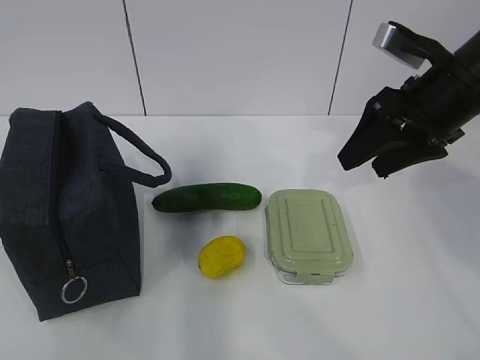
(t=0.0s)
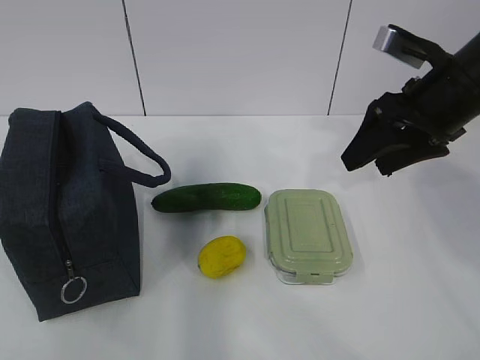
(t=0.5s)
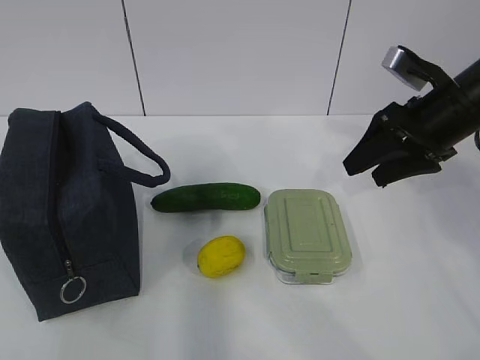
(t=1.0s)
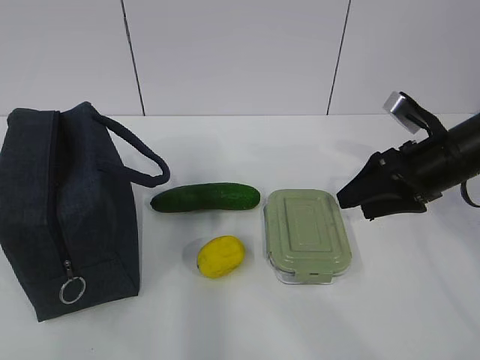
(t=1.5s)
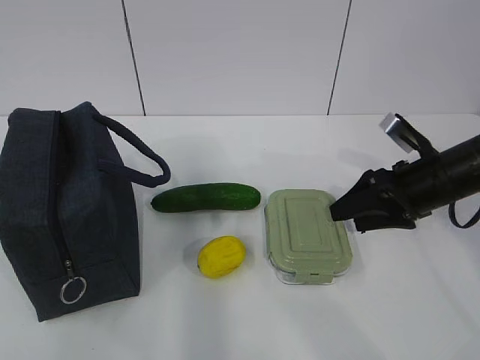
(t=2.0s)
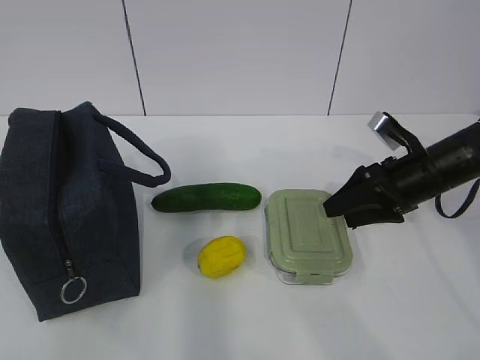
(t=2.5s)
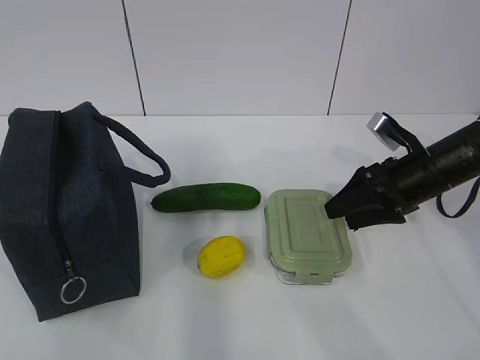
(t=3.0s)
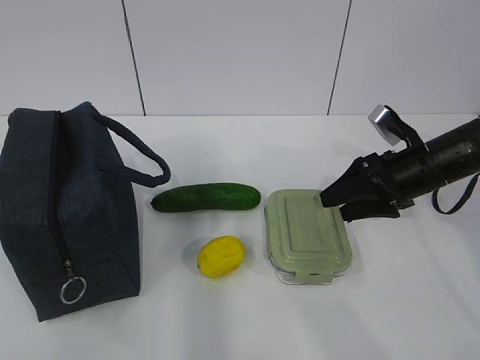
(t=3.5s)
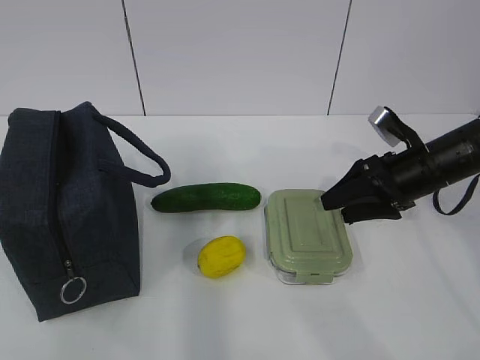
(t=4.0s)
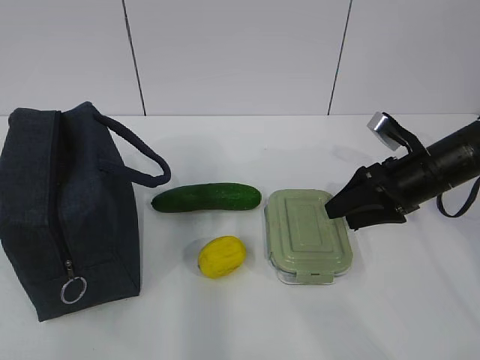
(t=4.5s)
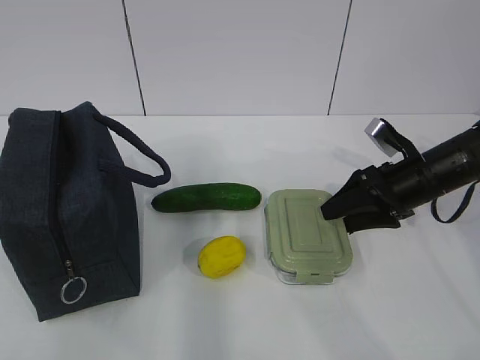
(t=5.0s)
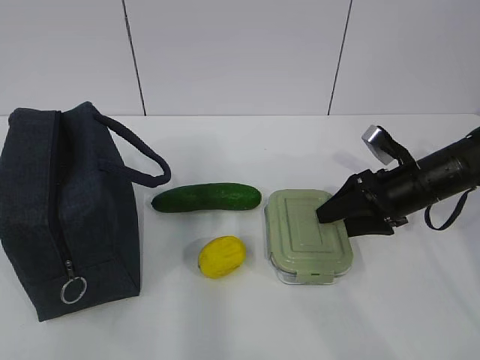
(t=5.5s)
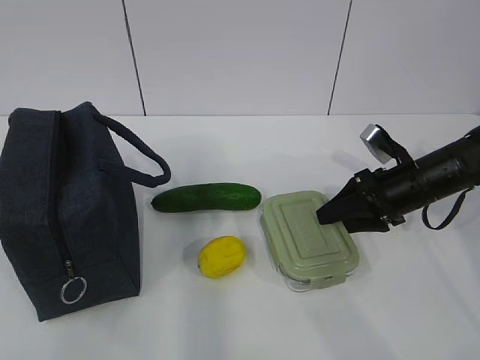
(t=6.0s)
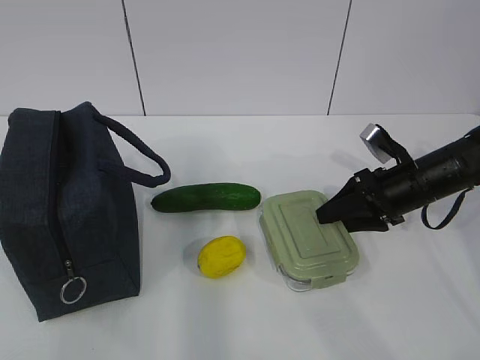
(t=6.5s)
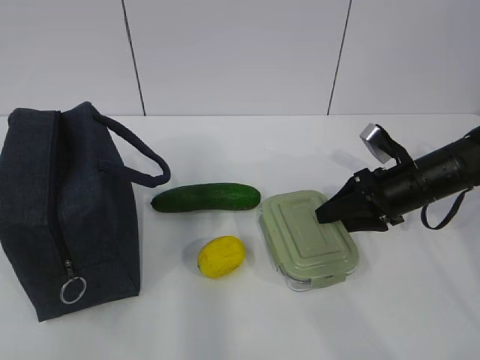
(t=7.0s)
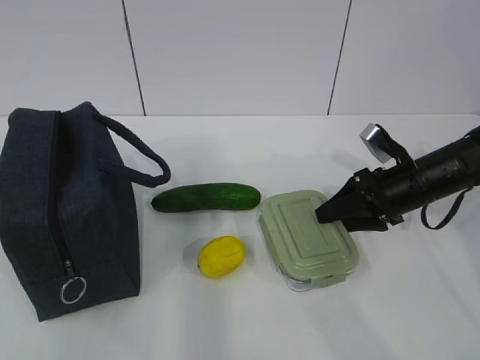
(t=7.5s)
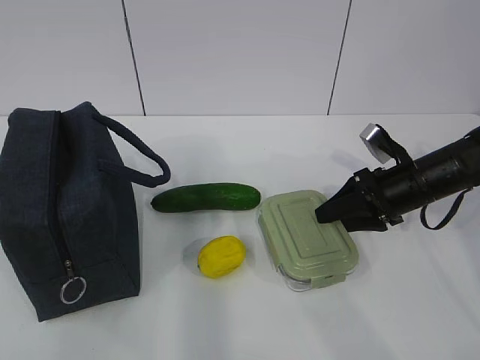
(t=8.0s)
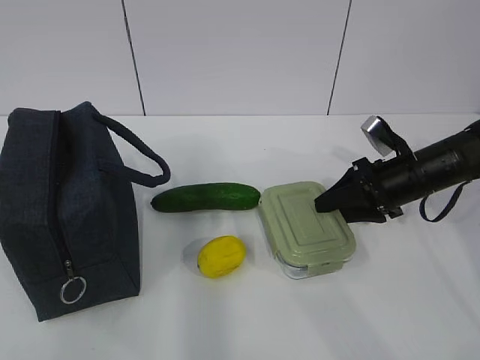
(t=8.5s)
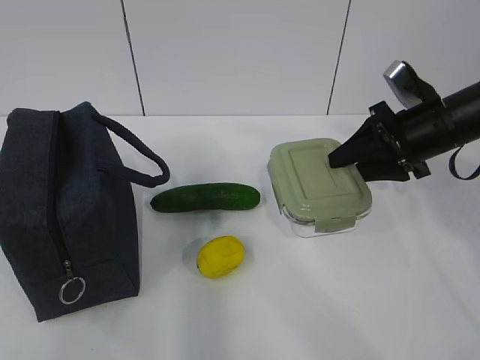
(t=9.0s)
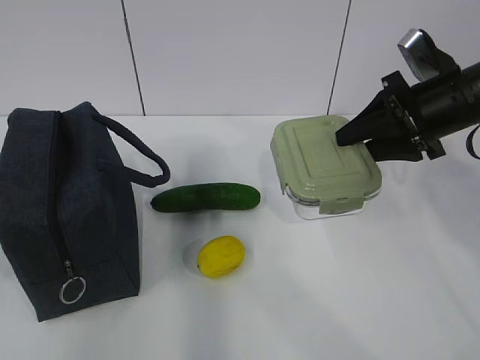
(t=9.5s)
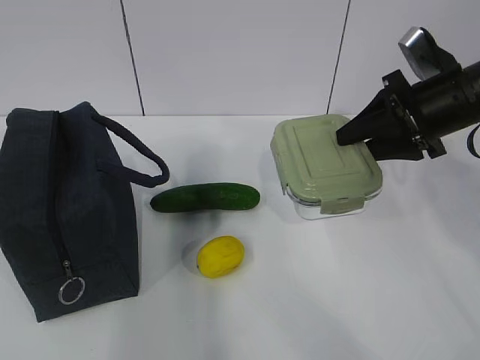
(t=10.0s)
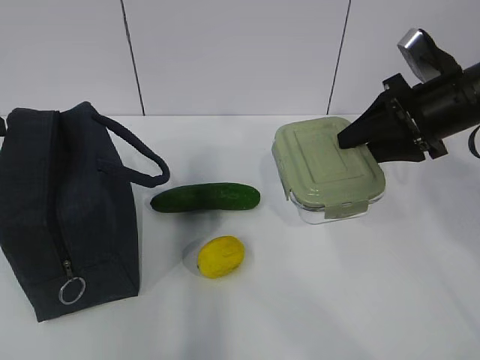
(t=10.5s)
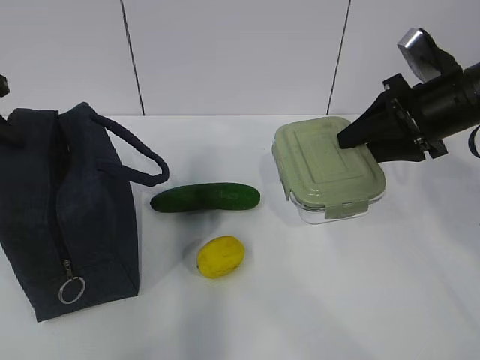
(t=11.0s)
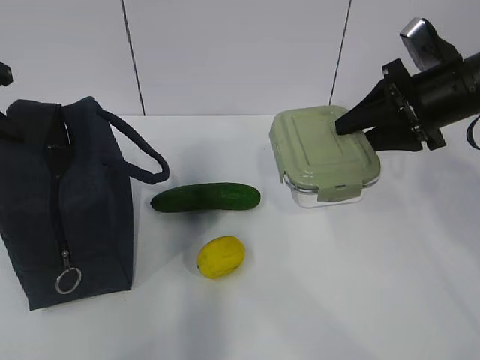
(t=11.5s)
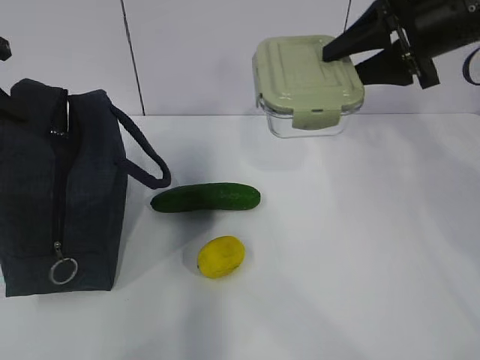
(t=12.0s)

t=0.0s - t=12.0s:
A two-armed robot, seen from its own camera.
Step, t=0.0s - t=5.5s: Grab the lunch box with your right hand.
Step, t=6.0s - t=10.5s: Grab the lunch bag with your left hand.
t=0.0s - t=2.0s: The right gripper travels downward by roughly 15 cm.
t=2.0s - t=6.0s: There are only small adjustments of the grippers.
t=6.0s - t=8.0s: Both grippers stay about where they are.
t=8.0s - t=10.0s: The left gripper goes some 20 cm forward, and opens. Meanwhile the right gripper heads upward, covering some 15 cm.
t=10.0s - t=12.0s: The right gripper travels upward by about 10 cm, while the left gripper travels forward and downward by approximately 10 cm, and closes its fingers.

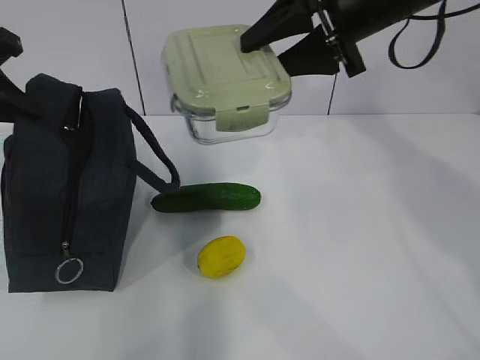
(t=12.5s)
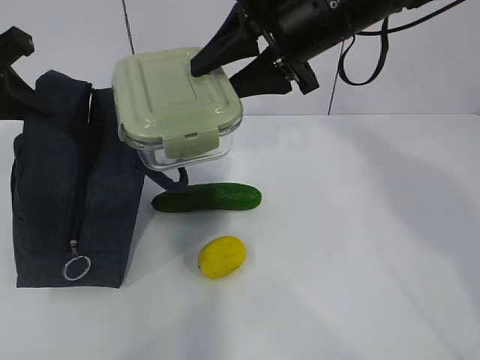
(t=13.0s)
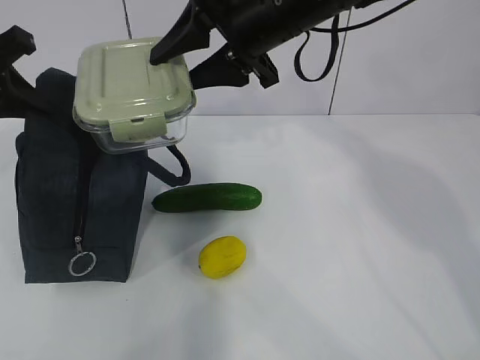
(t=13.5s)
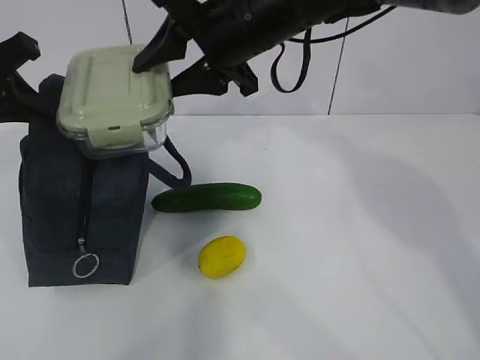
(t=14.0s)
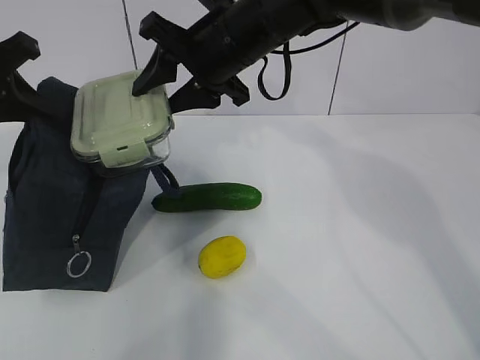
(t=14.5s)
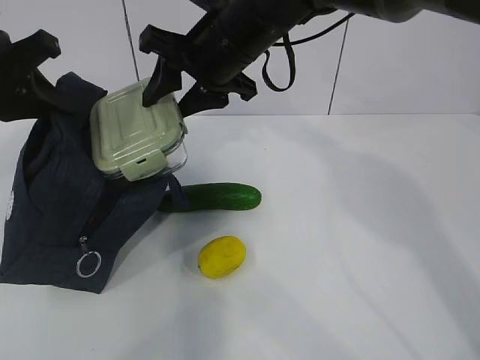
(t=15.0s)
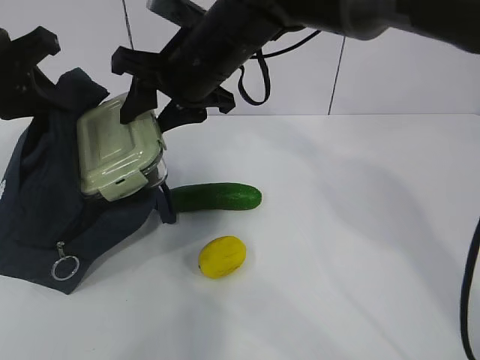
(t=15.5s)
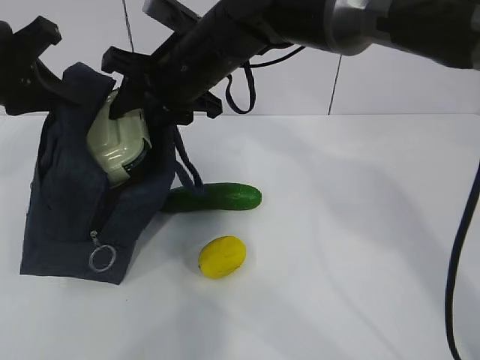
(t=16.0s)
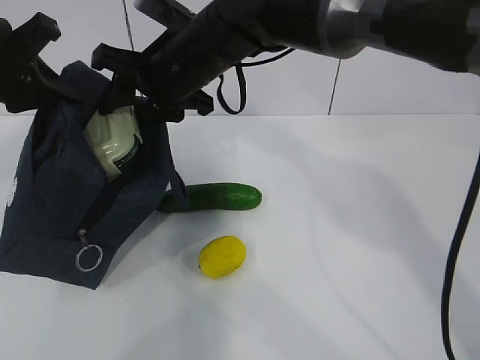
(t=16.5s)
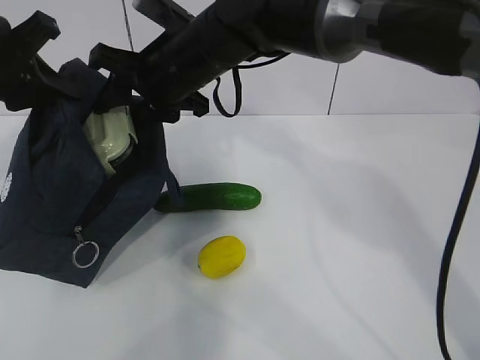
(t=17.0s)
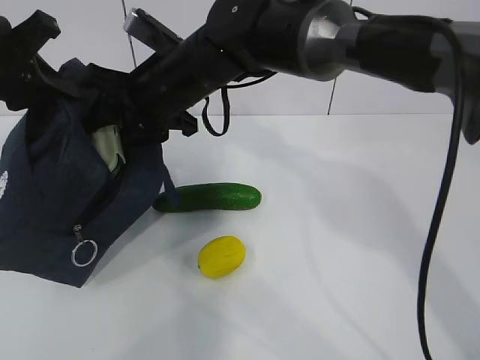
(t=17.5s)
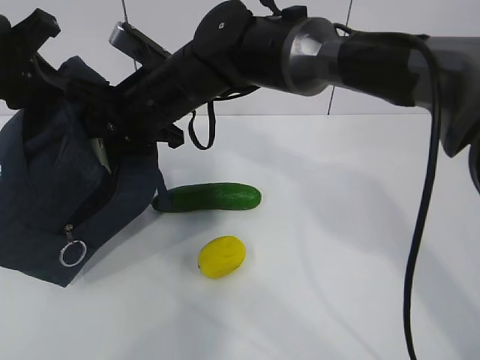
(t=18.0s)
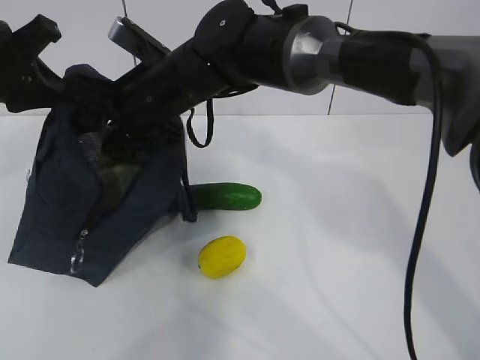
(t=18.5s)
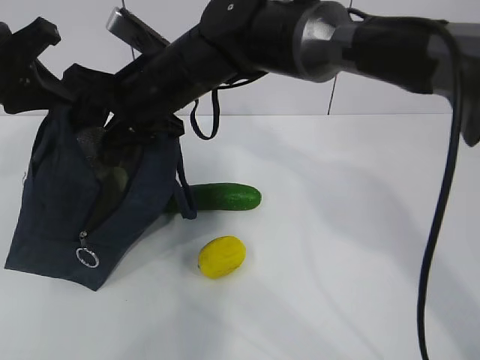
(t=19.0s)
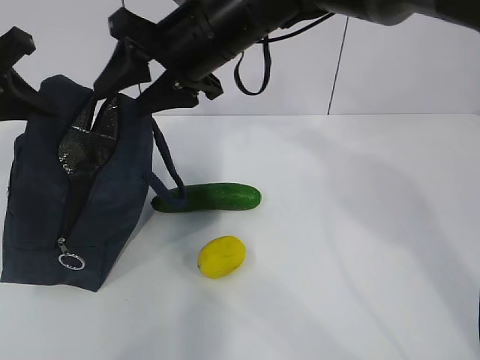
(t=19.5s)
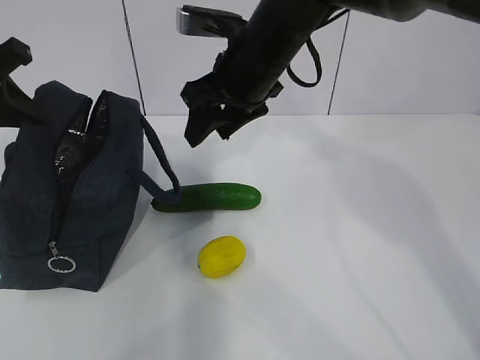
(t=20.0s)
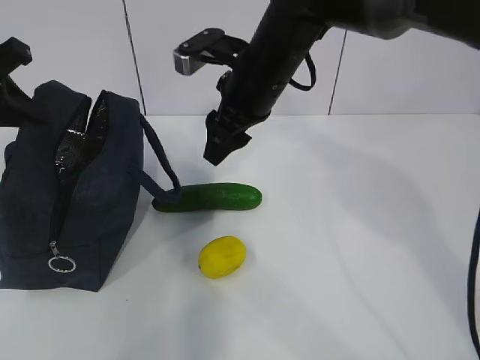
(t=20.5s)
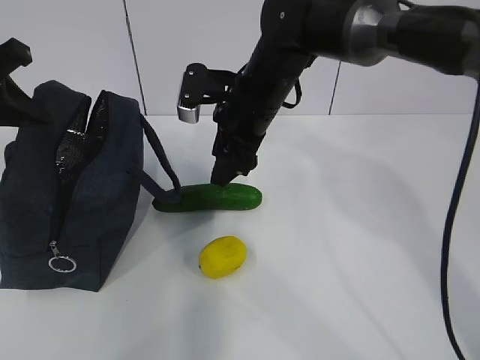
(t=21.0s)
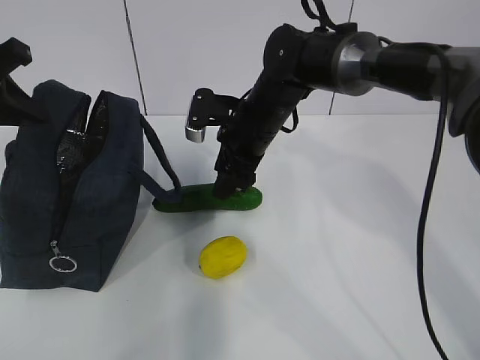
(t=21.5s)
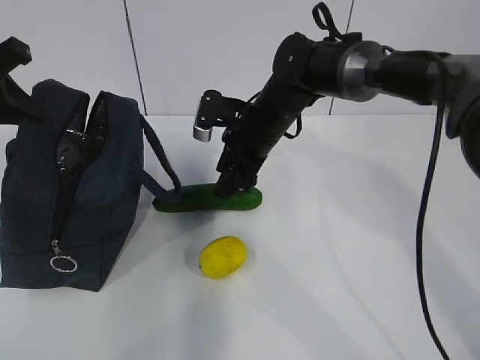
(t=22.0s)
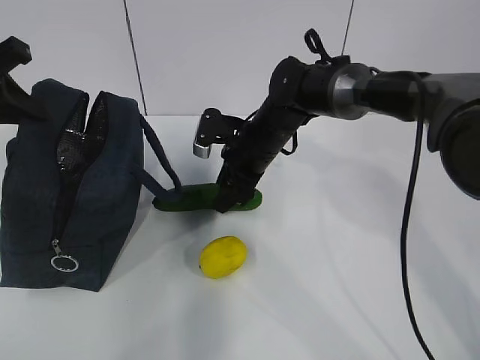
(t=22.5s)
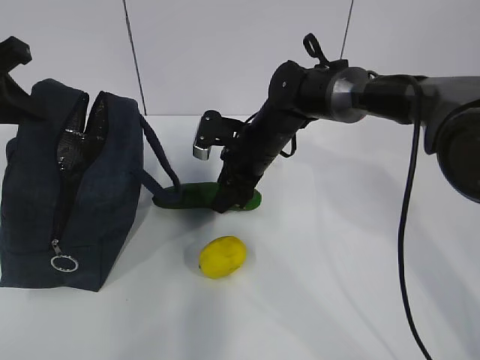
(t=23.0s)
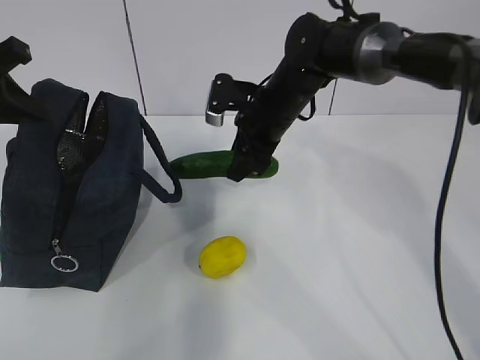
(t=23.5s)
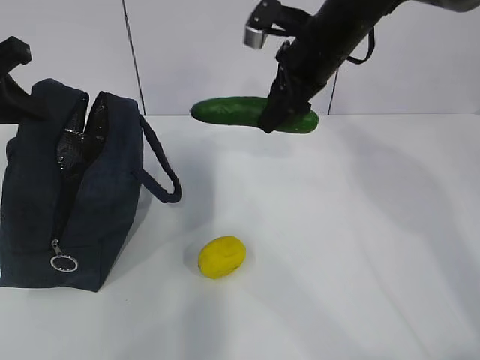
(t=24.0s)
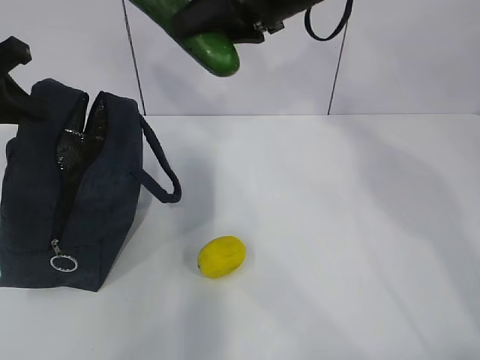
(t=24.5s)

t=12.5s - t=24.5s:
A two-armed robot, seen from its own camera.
Step, t=12.5s - t=14.5s: Place it into the bag with your right hand.
Step, t=15.0s - t=18.0s: Grab the cucumber with your right hand.
Step, t=18.5s - t=22.5s: Place it into the bag with your right hand.
t=12.5s - t=14.5s: The right gripper moves to the left and downward, roughly 15 cm.
t=14.5s - t=16.5s: The right gripper shifts approximately 5 cm to the left.
t=18.5s - t=20.5s: The right gripper moves to the right, some 10 cm.
t=20.5s - t=22.5s: The right gripper is displaced downward by about 10 cm.
t=22.5s - t=24.5s: The right gripper heads upward, covering about 20 cm.

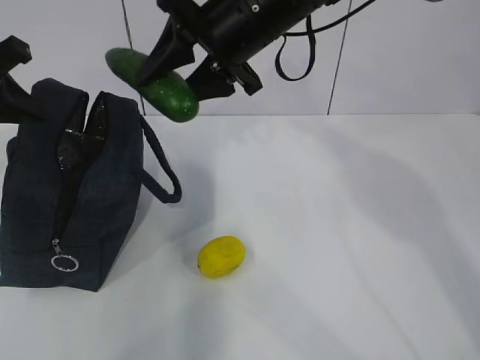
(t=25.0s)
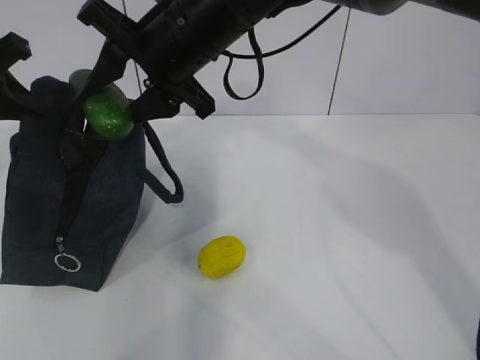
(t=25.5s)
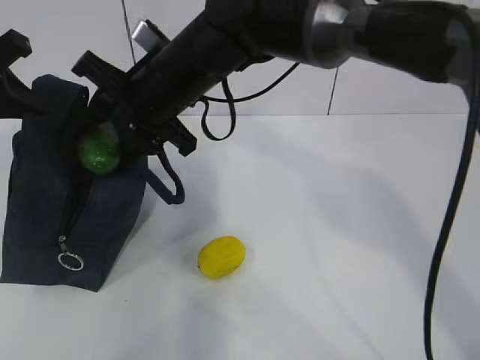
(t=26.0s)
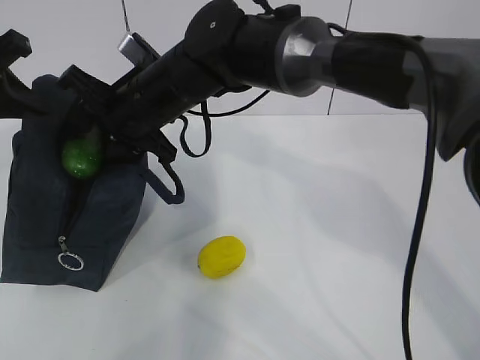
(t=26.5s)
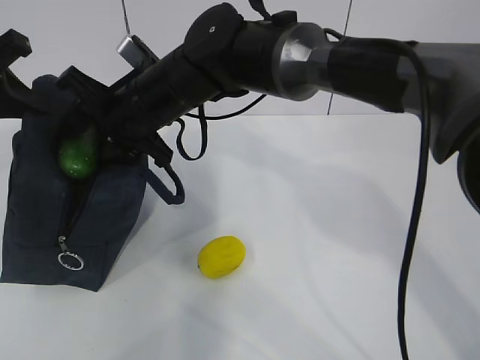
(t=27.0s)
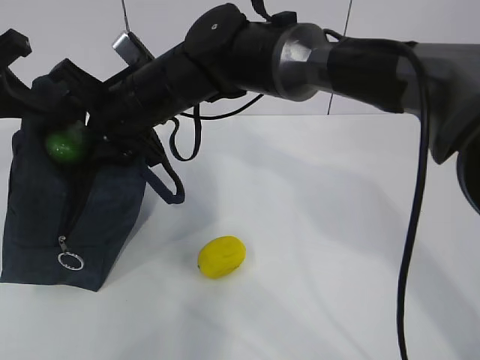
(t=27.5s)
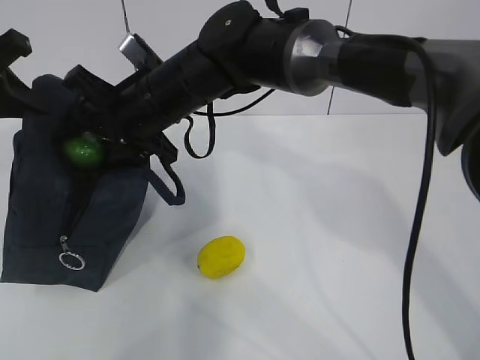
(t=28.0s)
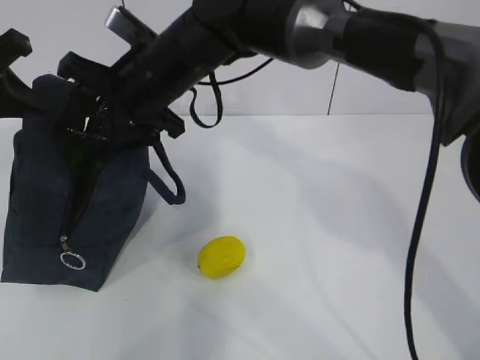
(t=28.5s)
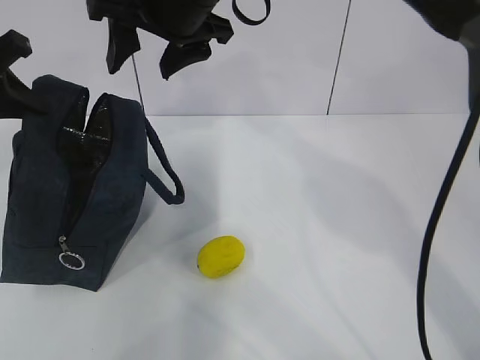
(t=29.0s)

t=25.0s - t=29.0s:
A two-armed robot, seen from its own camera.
Step, t=25.0s - t=27.0s: Grab the lemon with your right hand.
t=25.0s - t=27.0s: The right gripper travels to the left and downward by roughly 15 cm.
t=27.0s - t=29.0s: The right gripper moves upward and to the right, about 10 cm.
